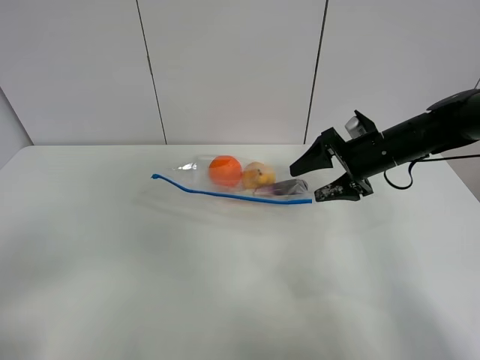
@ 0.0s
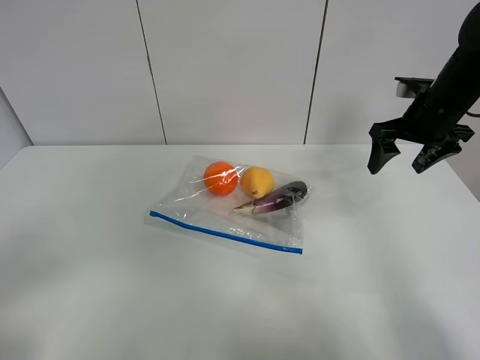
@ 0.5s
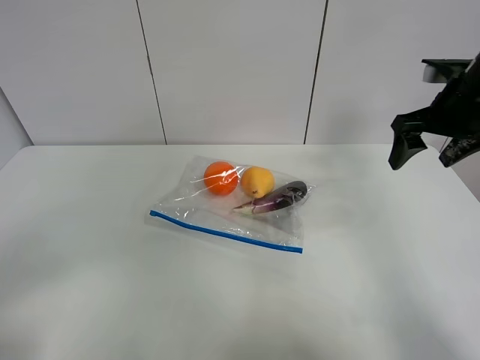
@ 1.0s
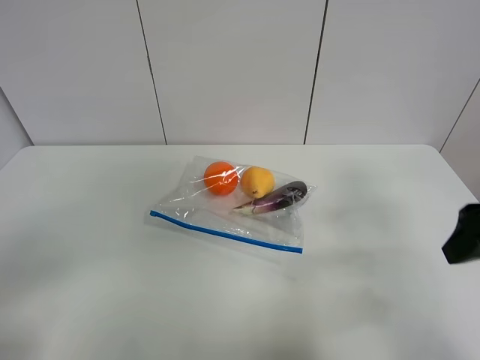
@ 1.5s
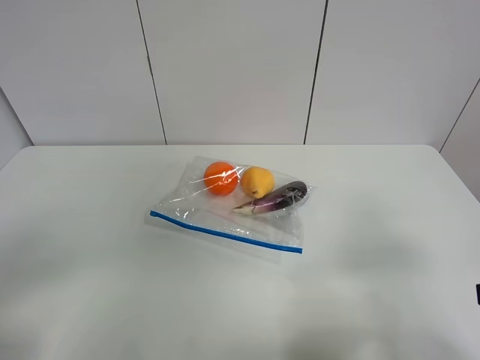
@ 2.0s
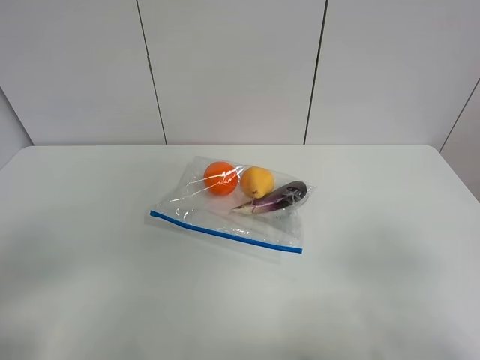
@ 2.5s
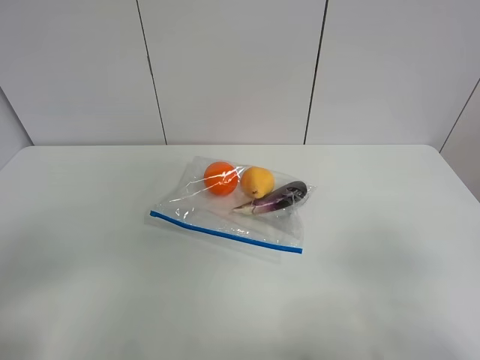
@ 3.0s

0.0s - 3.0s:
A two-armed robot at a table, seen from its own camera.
0.0s - 1.5s: The right gripper moves backward and upward, about 25 cm.
1.5s - 3.0s: The right gripper moves backward, some 15 cm.
